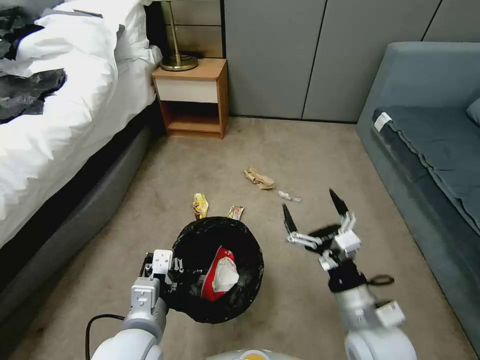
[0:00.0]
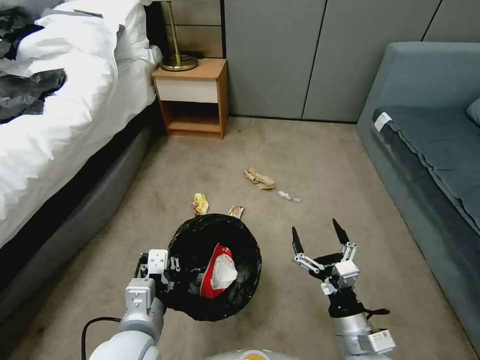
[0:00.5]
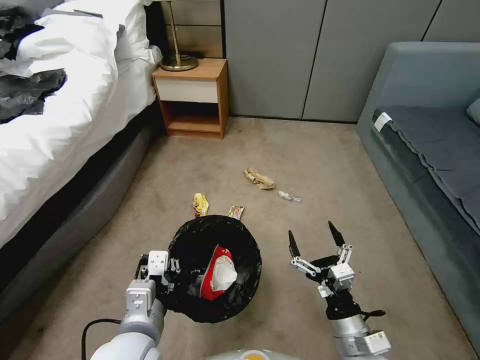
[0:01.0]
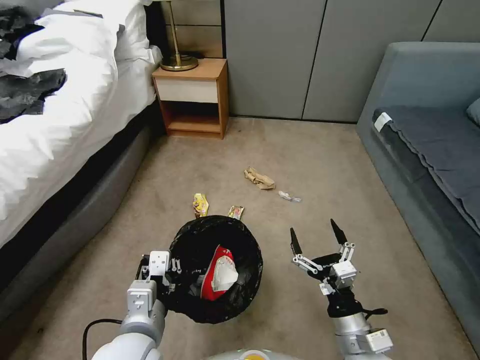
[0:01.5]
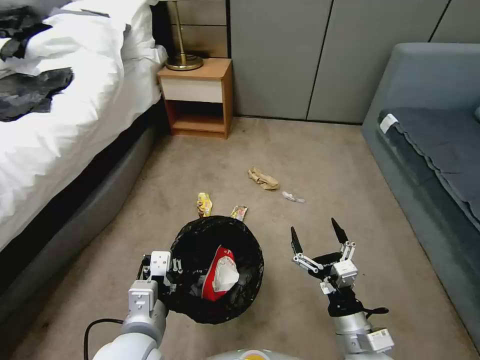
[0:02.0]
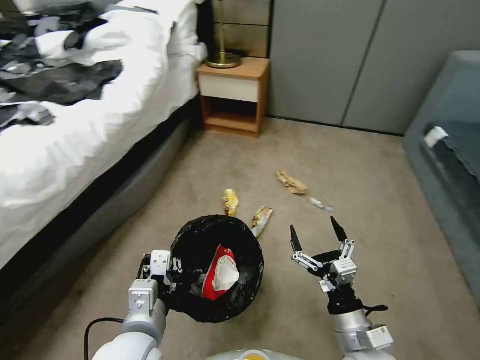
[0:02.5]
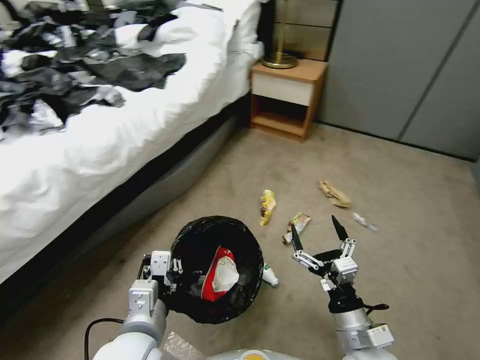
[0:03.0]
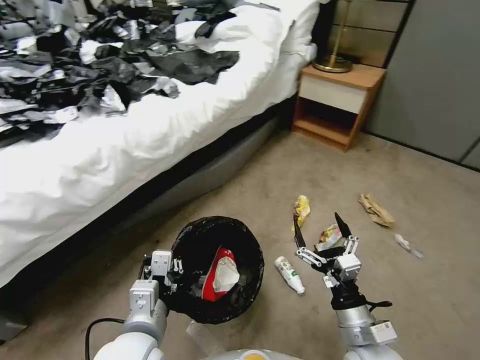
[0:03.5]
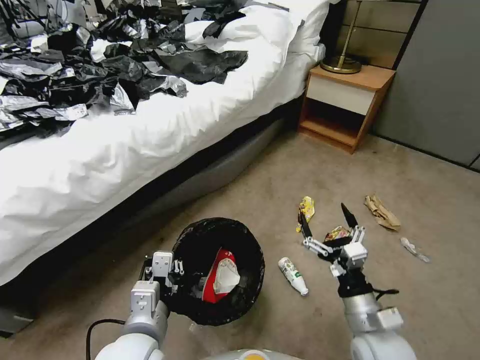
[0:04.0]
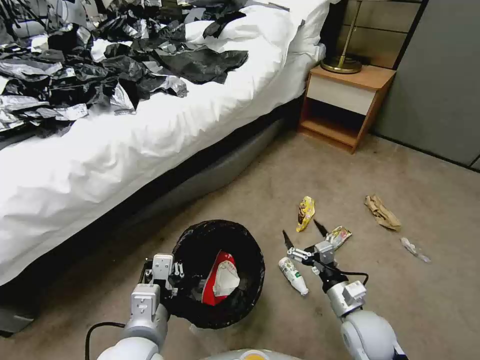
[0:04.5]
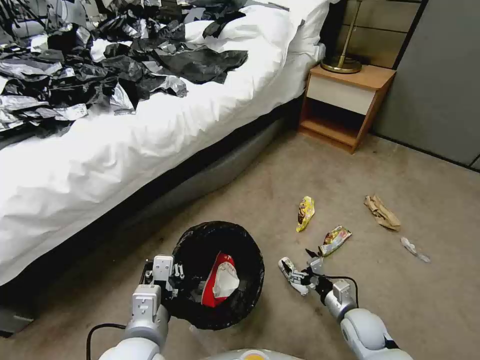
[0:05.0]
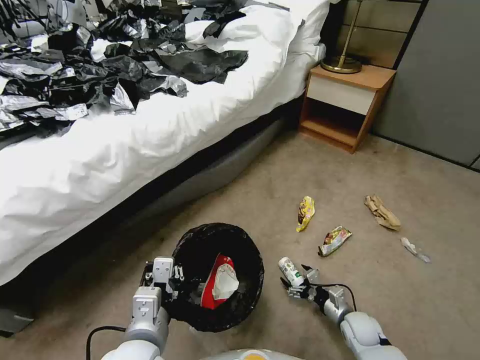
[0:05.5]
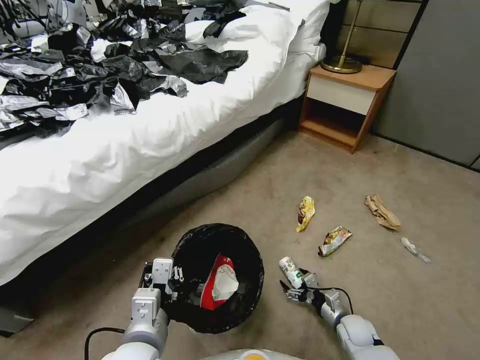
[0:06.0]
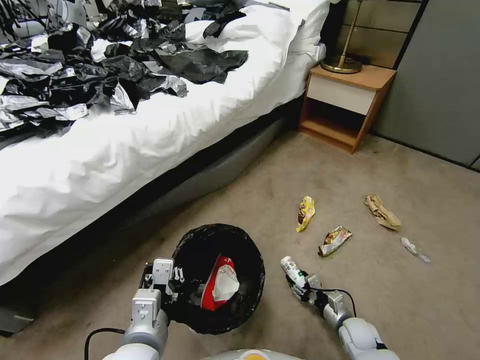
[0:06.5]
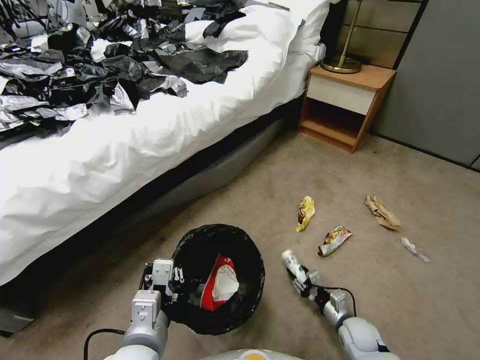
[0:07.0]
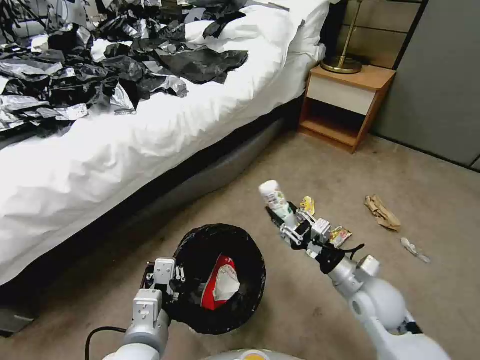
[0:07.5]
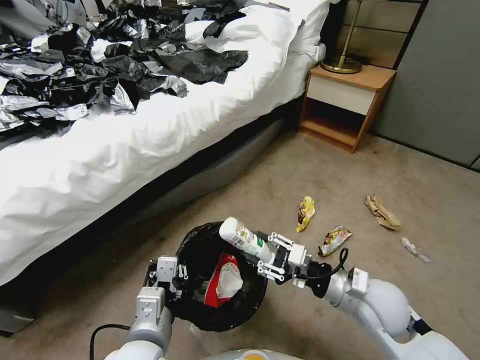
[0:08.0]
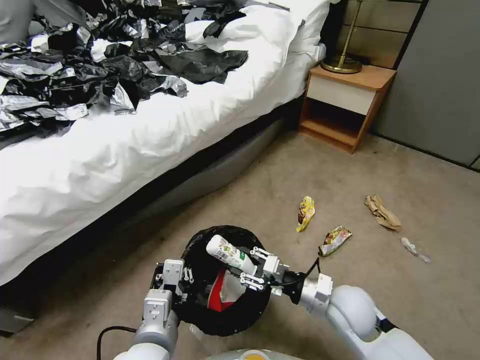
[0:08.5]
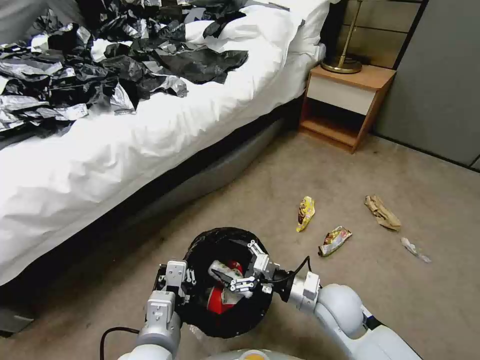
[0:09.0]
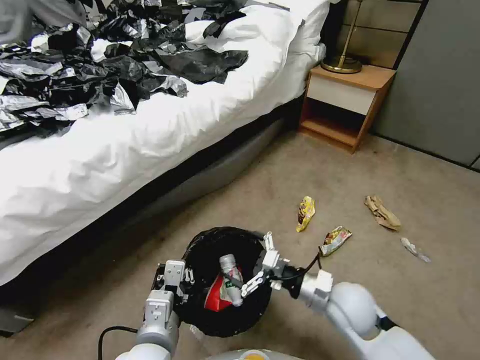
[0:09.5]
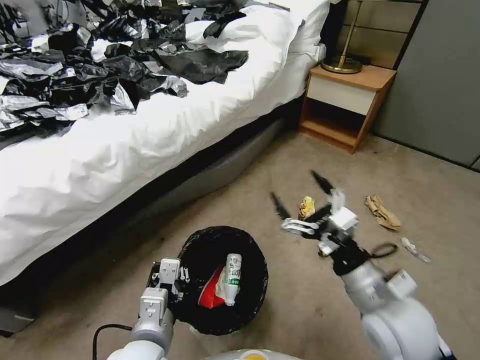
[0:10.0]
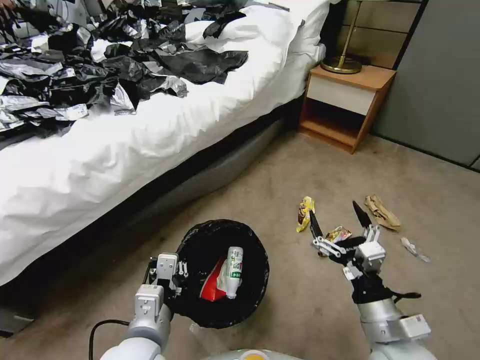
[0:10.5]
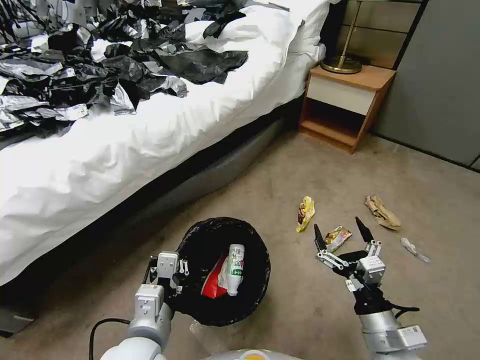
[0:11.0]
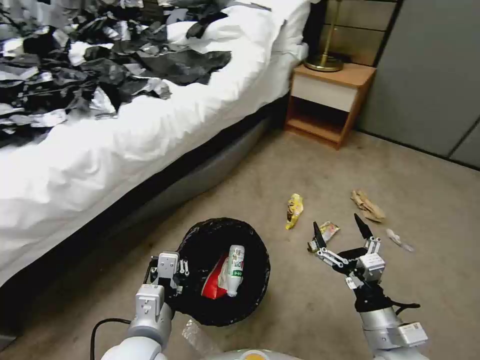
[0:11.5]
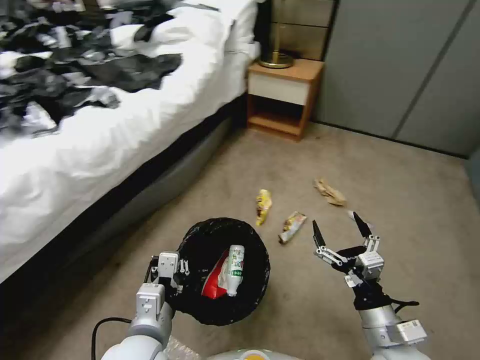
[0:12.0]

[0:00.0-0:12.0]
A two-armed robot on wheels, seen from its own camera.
Task of the whole recording: Pick up the trash bin, then pick up the garbage from the floor and place it into the trash bin.
0:00.0 to 0:02.0: The right gripper heads downward, covering about 5 cm.
0:04.0 to 0:06.0: The right gripper goes approximately 25 cm downward.
0:06.0 to 0:08.0: The right gripper is displaced upward by about 30 cm, and closes up.
0:08.0 to 0:10.0: The right gripper opens.
0:10.0 to 0:12.0: The right gripper is displaced downward and backward by approximately 10 cm.

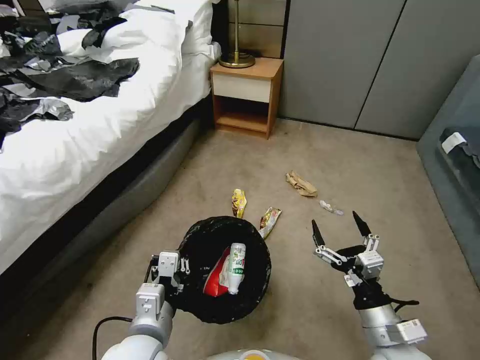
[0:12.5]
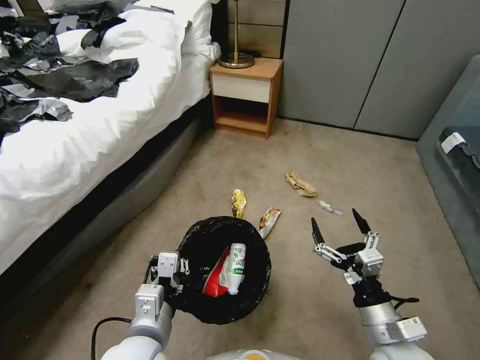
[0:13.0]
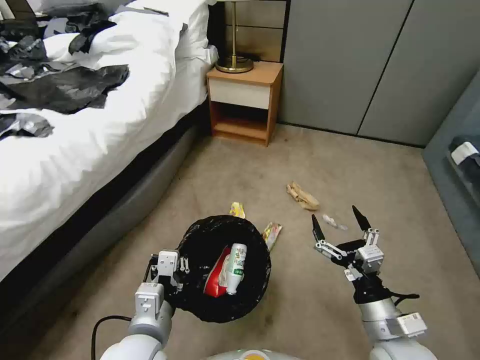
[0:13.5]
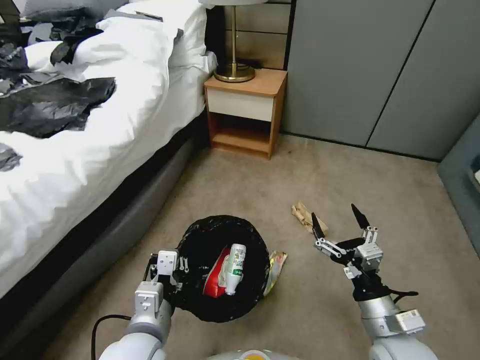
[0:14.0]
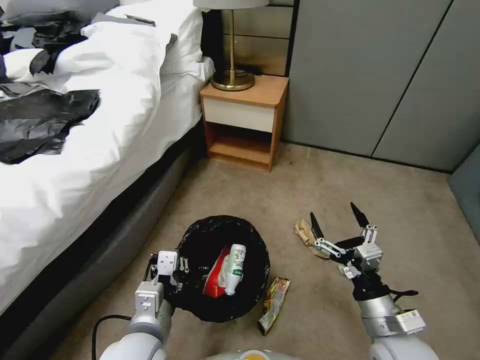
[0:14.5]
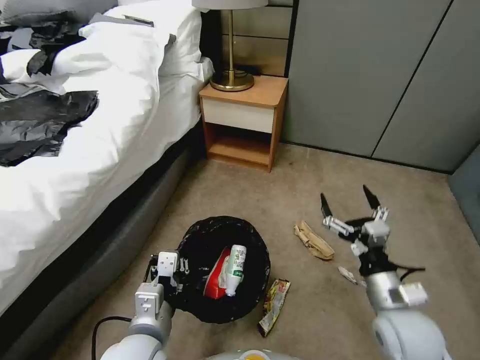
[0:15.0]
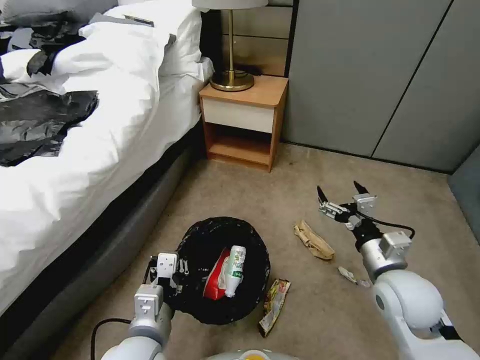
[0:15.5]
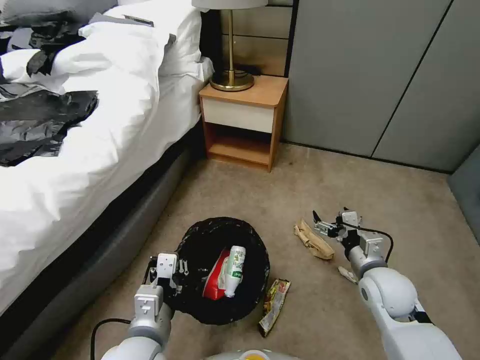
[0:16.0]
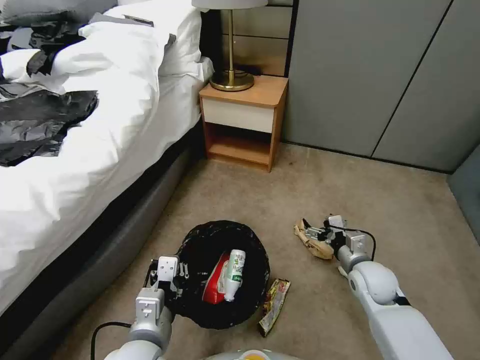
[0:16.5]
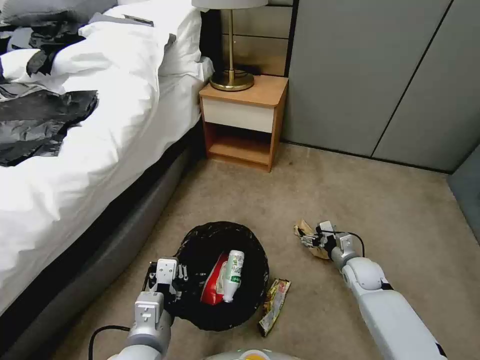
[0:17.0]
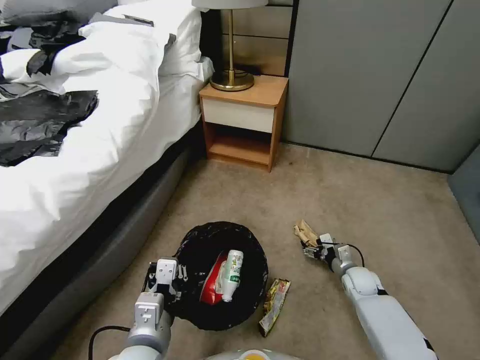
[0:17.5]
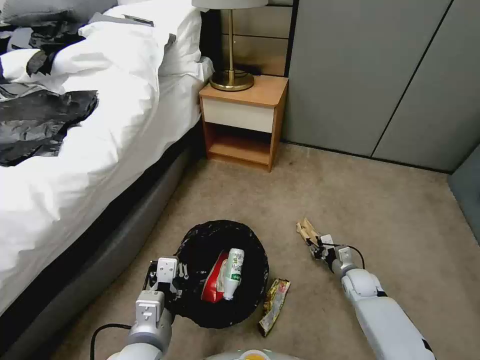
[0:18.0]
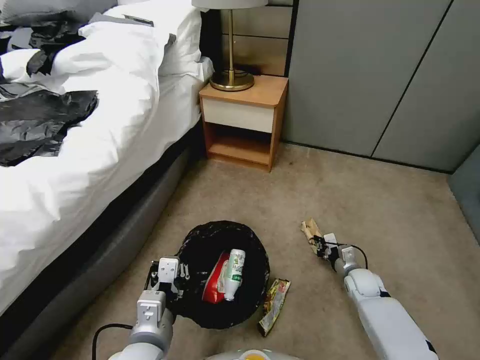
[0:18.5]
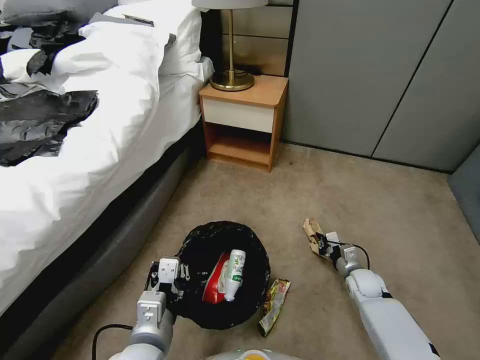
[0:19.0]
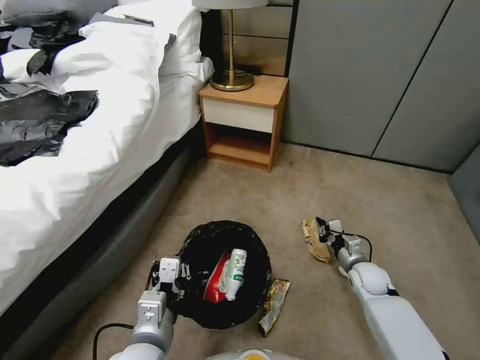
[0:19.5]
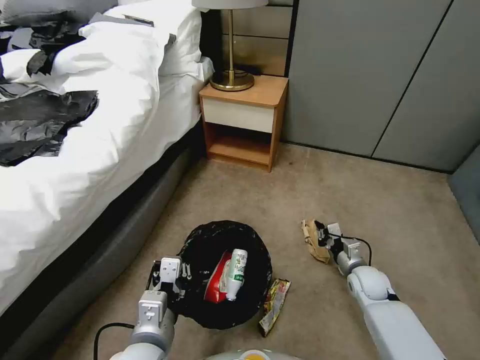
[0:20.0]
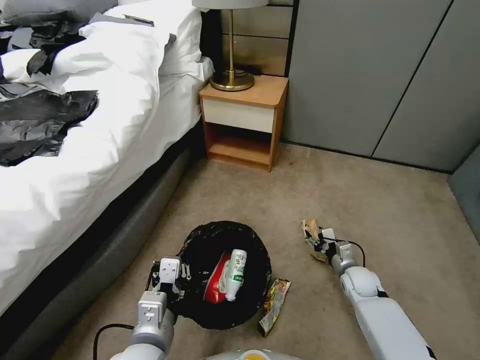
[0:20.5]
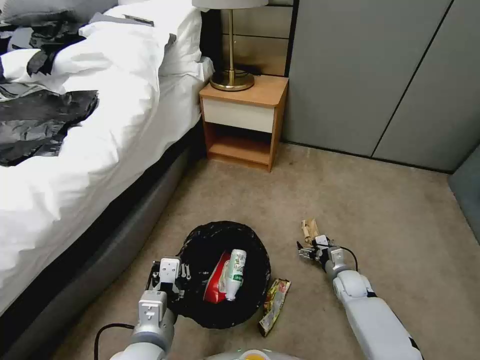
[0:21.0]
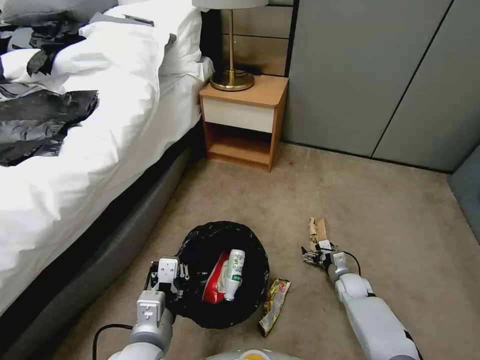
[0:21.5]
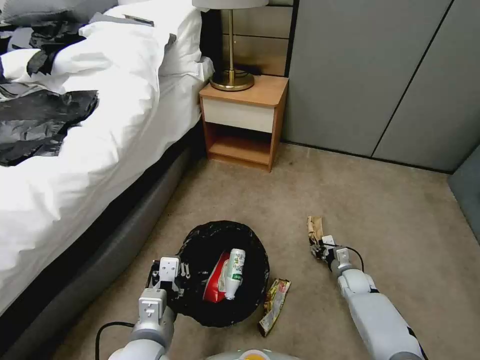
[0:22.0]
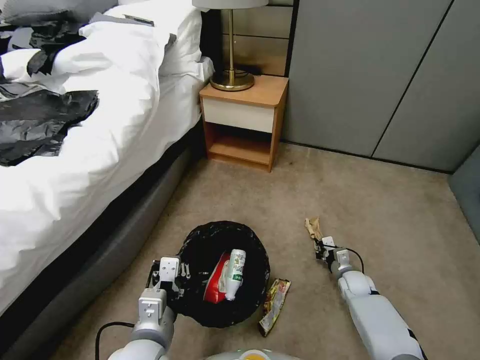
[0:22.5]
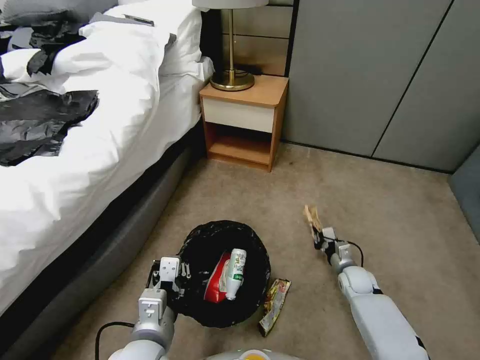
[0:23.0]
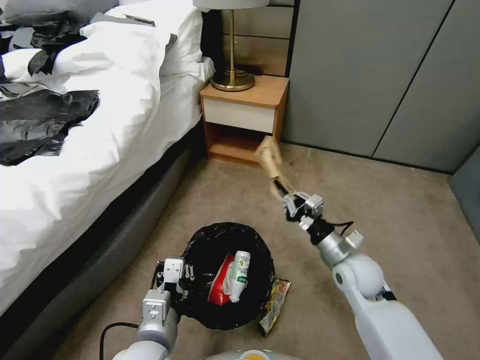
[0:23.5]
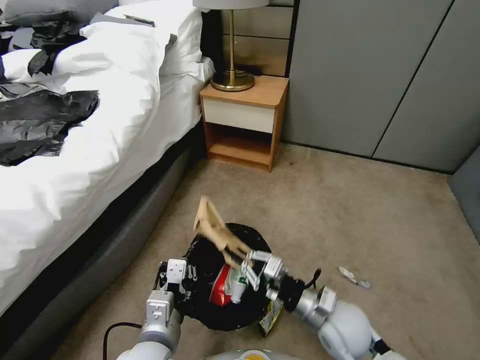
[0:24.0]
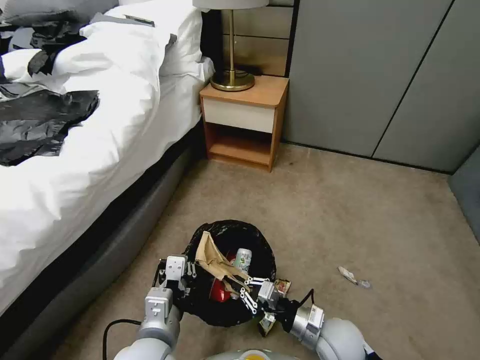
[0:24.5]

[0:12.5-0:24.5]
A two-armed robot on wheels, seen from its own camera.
Task of the whole recording: Pick up the trash bin, then pick up the garbage from the floor and place it into the trash bin.
0:14.5 to 0:16.5: The right gripper shifts some 15 cm forward and downward.
0:16.5 to 0:18.5: The right gripper goes about 15 cm downward, and closes its fingers.
0:18.5 to 0:20.5: The right gripper opens its fingers.
0:20.5 to 0:22.5: The right gripper heads downward, covering about 5 cm, and closes.
0:22.5 to 0:24.5: The right gripper travels backward, to the left and upward by some 25 cm.

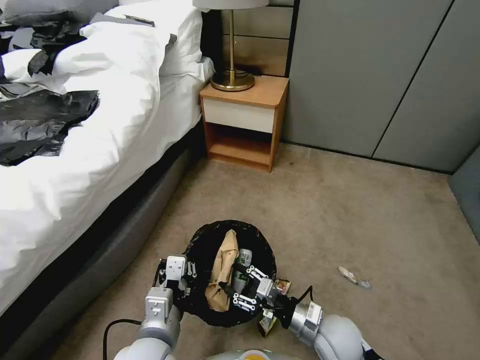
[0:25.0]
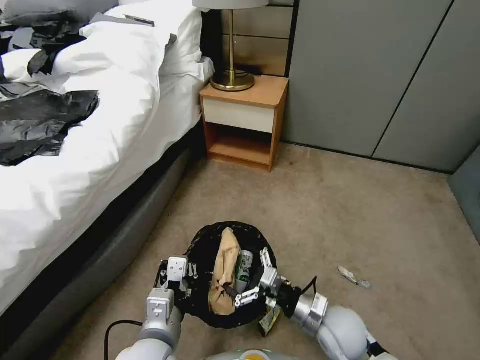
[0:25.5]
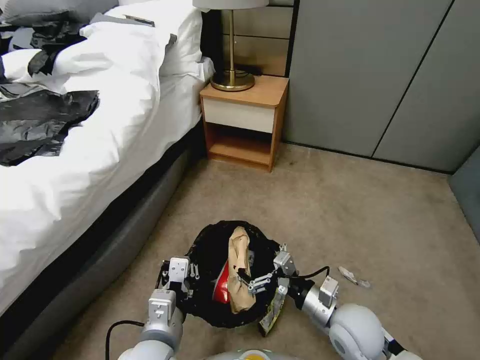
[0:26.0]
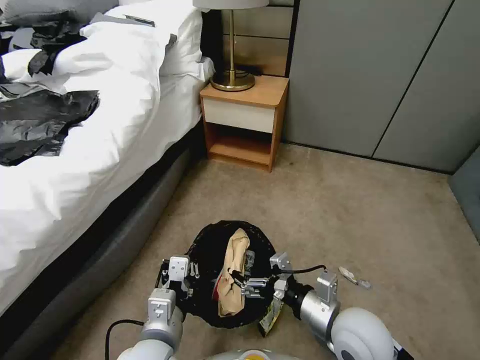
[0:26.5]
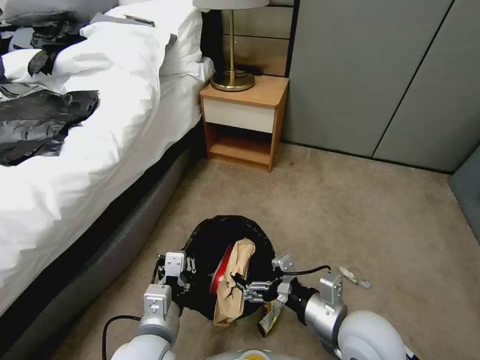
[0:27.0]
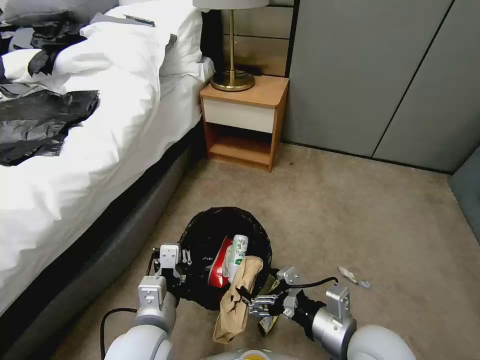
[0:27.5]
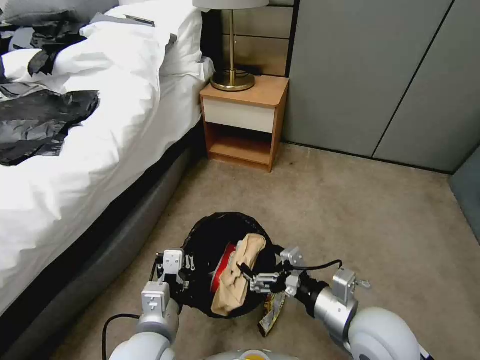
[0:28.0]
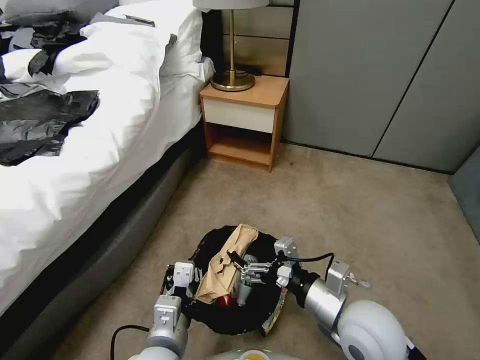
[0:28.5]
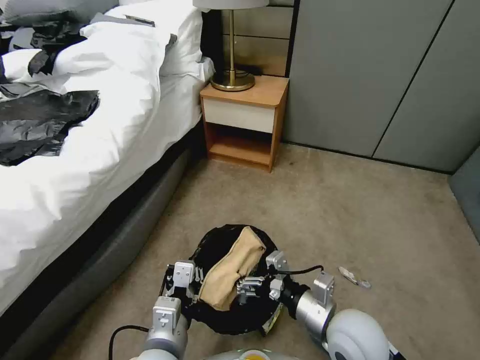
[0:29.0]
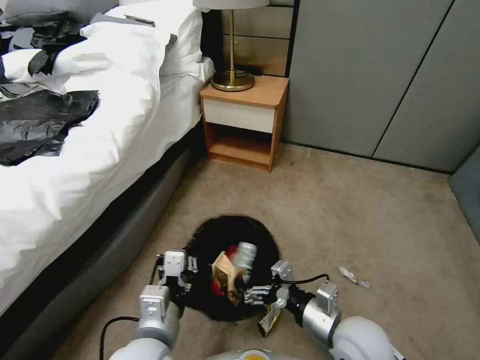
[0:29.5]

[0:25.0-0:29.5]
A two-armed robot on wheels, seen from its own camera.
Task of the whole recording: Pick up the trash bin, then pick up the garbage from the floor and place it into the trash bin.
0:25.0 to 0:27.0: The right gripper travels upward by about 15 cm, and opens its fingers.
0:27.0 to 0:29.5: There are only small adjustments of the grippers.
